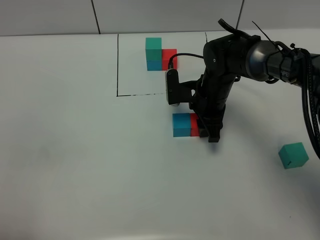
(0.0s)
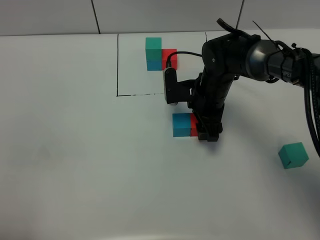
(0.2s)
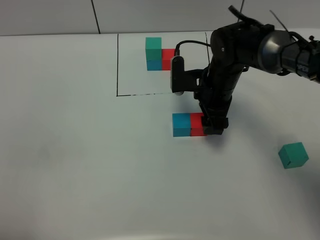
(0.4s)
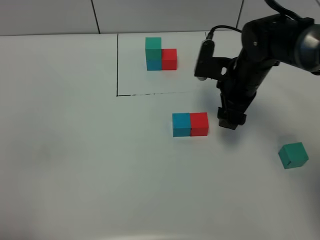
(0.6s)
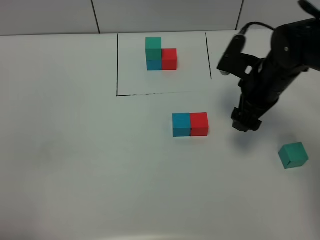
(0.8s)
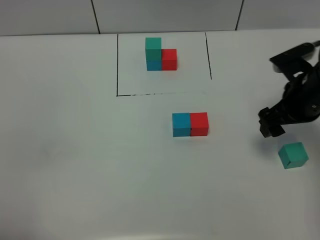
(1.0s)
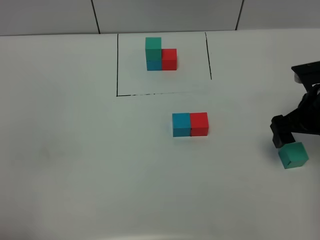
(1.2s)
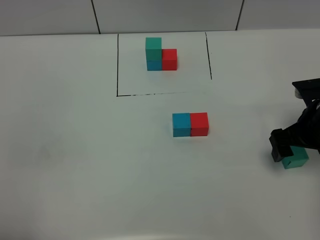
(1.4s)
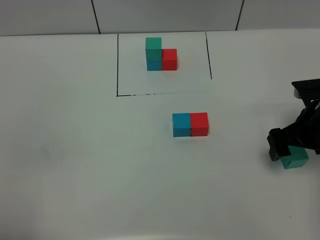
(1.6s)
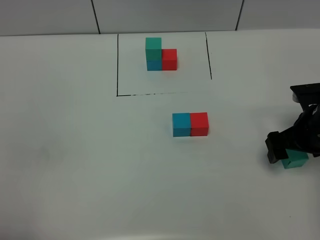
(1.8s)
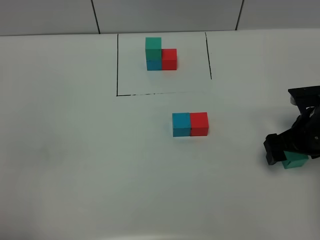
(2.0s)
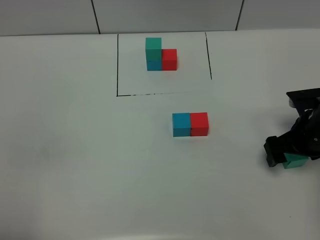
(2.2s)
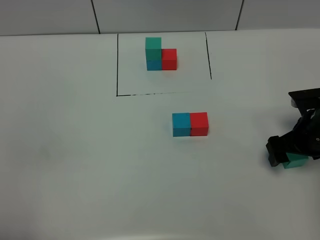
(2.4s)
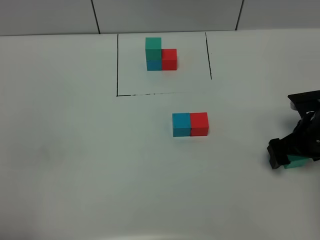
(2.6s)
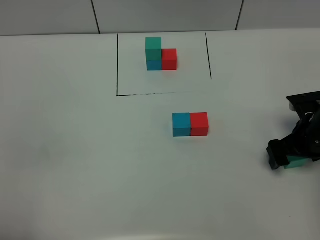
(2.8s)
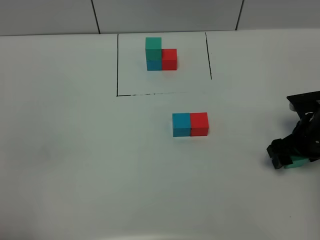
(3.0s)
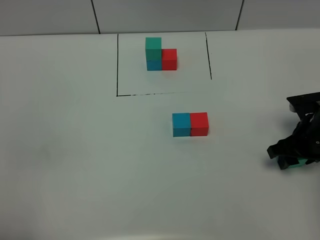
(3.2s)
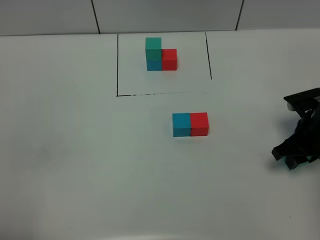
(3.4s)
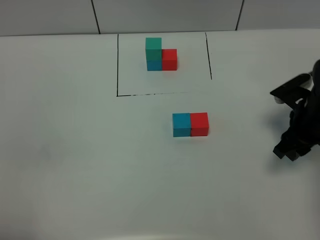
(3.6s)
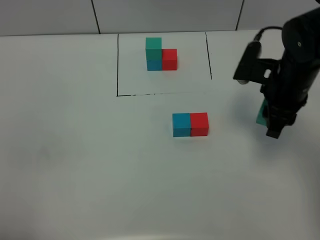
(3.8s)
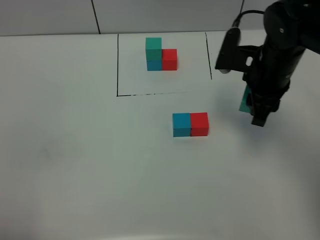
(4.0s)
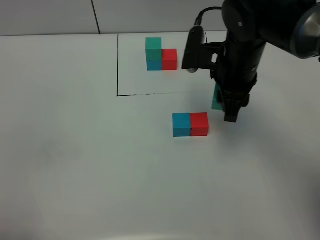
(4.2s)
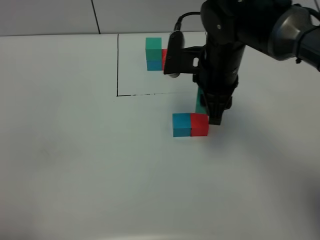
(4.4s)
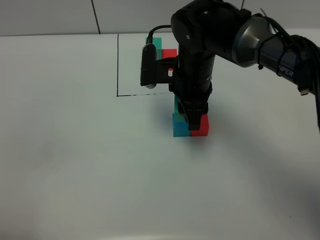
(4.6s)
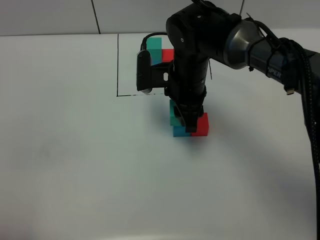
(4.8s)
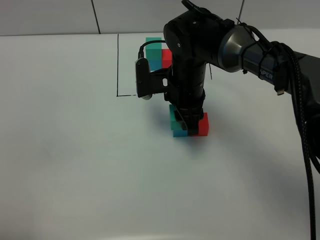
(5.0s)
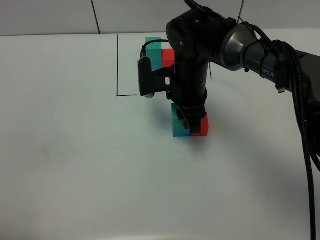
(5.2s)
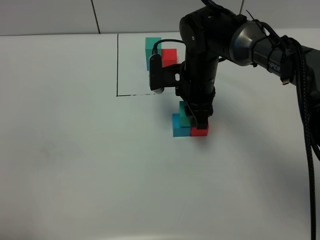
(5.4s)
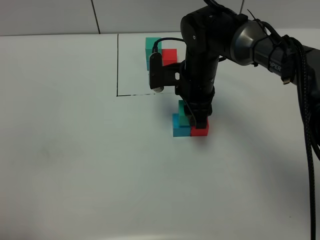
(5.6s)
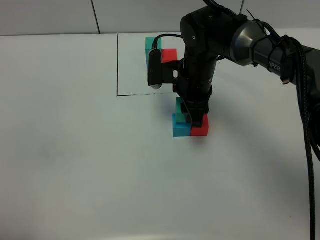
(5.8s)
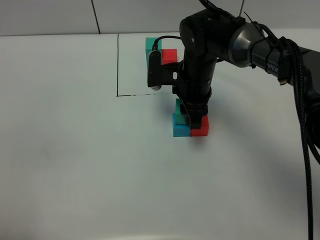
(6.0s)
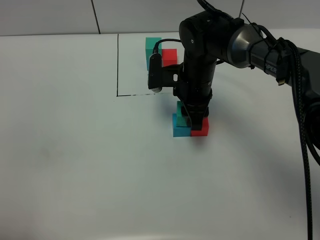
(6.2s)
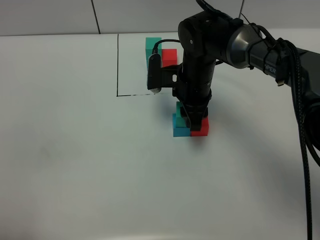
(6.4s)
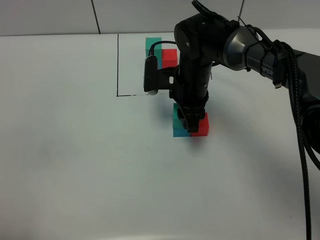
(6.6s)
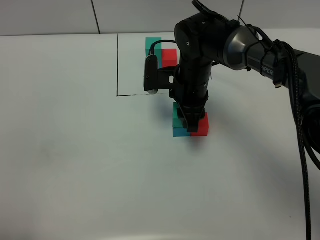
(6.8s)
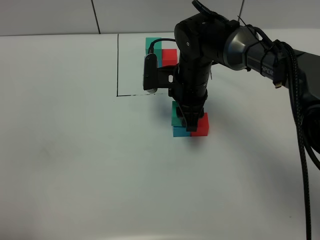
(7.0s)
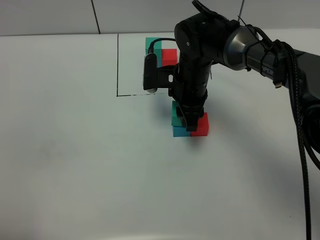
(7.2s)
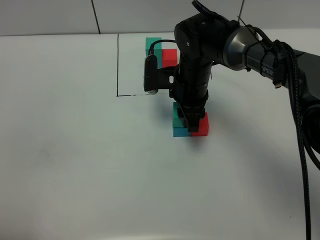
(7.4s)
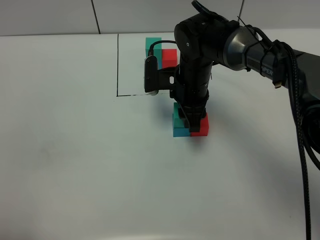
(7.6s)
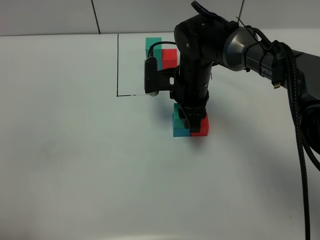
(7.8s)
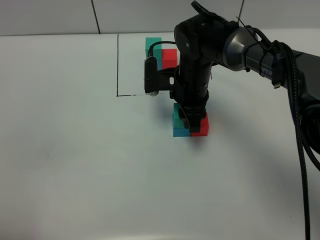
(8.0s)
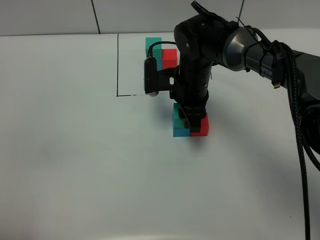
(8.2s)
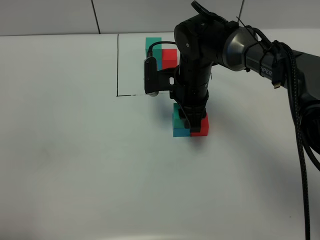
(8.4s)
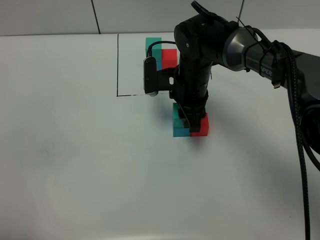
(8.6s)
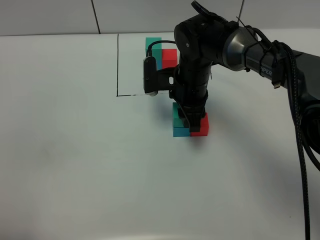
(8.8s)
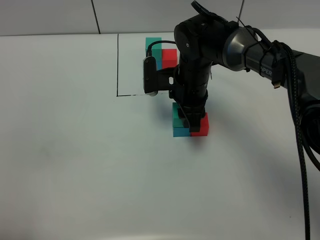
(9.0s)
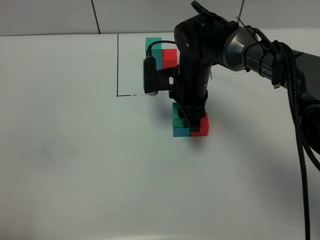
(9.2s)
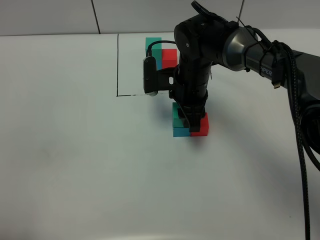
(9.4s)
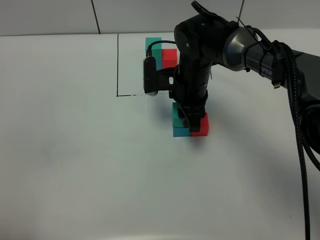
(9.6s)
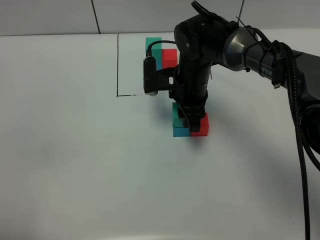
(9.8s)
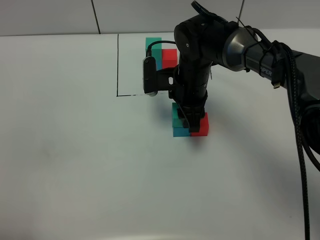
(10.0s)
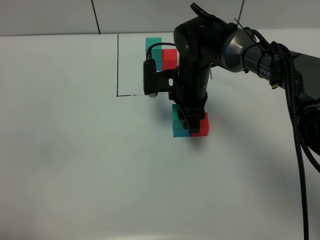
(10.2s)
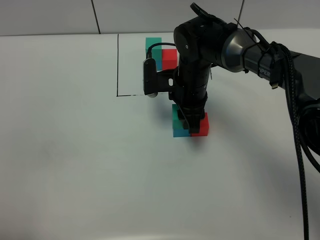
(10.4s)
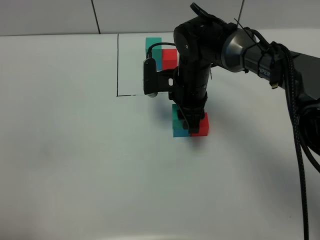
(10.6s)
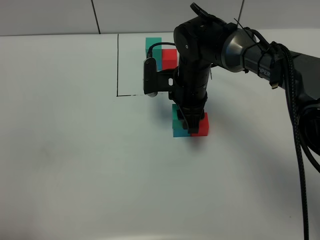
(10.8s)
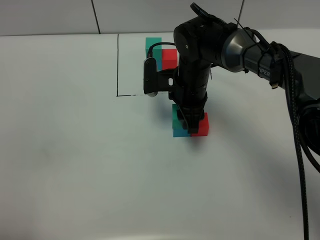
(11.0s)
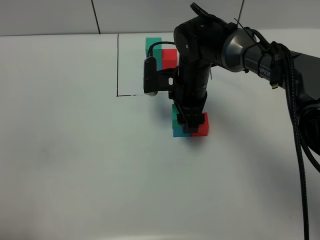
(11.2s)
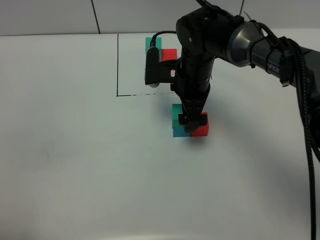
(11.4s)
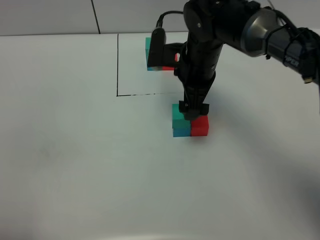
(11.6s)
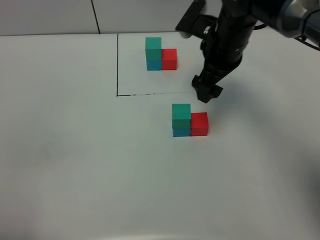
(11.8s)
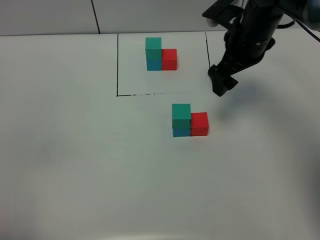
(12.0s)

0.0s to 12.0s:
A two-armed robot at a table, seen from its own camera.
Task of the whole recording: According to the building block template in front, assemble the scattered blocks together.
Step, 0.4s to 11.4s: Put the green build block on the blue build block.
0.0s to 1.6s: The right gripper heads to the right and backward, covering approximately 20 cm, and opens its fingers.
1.6s to 3.0s: The grippers move only a little.
3.0s to 4.4s: The right gripper is displaced to the left and upward by roughly 25 cm, and closes up.
4.4s to 6.0s: The right gripper goes about 5 cm downward.
6.0s to 10.4s: The two grippers keep their place.
10.4s to 12.0s: The right gripper goes some 15 cm to the right and upward, and opens.

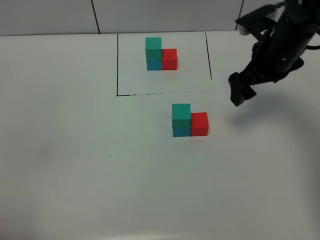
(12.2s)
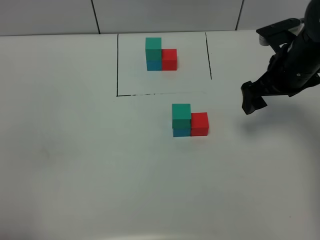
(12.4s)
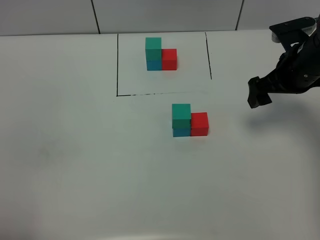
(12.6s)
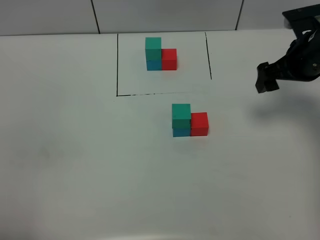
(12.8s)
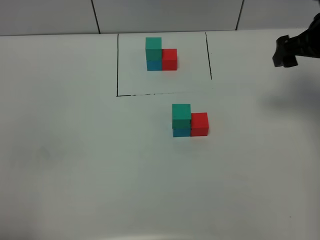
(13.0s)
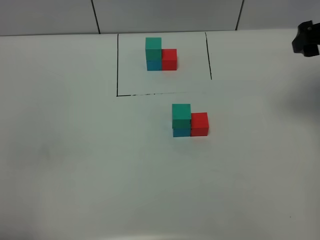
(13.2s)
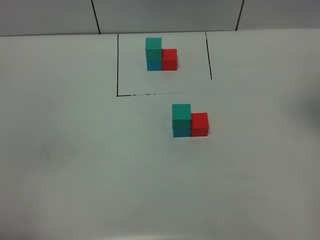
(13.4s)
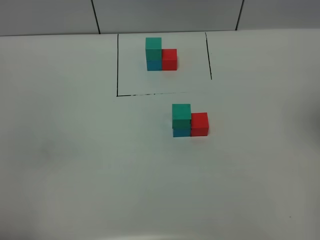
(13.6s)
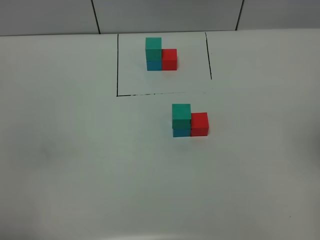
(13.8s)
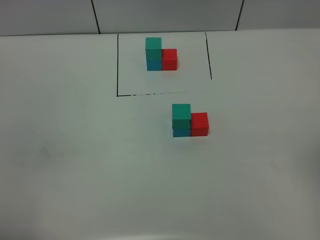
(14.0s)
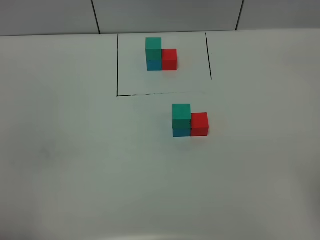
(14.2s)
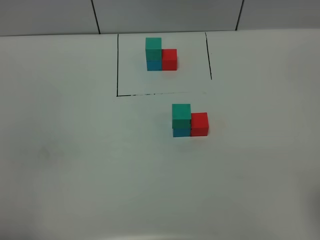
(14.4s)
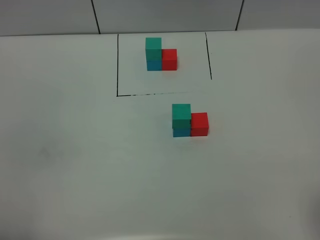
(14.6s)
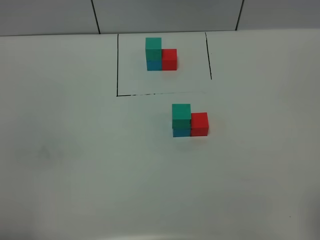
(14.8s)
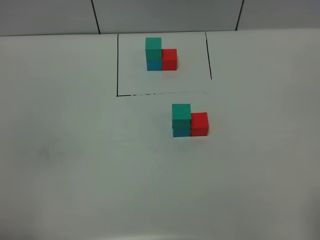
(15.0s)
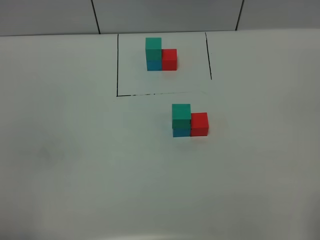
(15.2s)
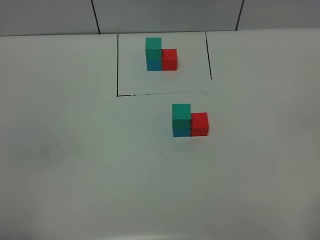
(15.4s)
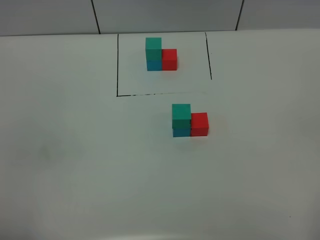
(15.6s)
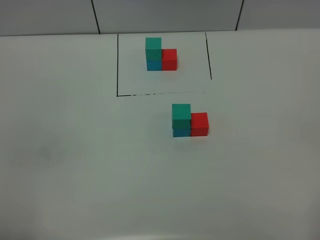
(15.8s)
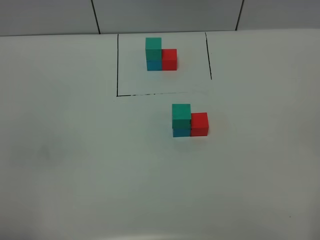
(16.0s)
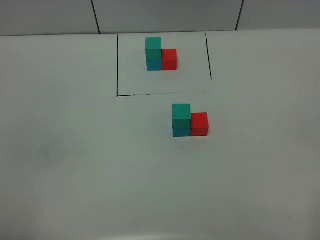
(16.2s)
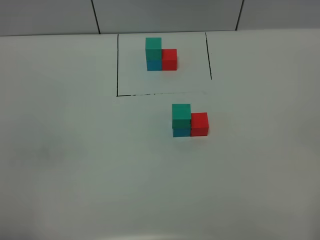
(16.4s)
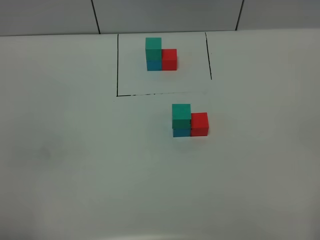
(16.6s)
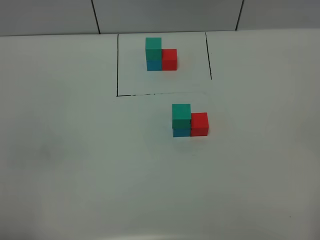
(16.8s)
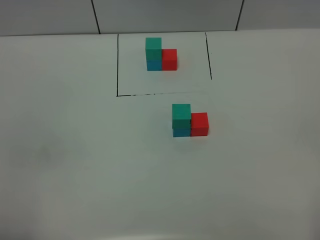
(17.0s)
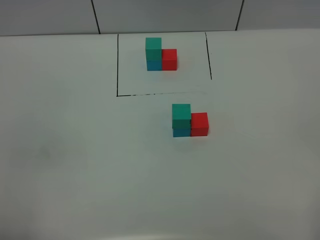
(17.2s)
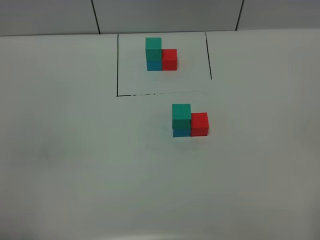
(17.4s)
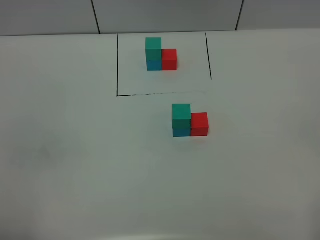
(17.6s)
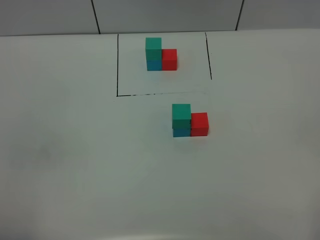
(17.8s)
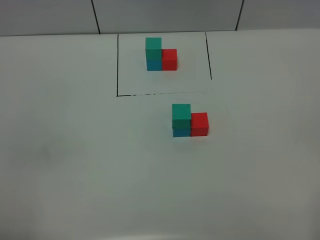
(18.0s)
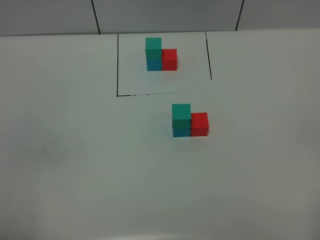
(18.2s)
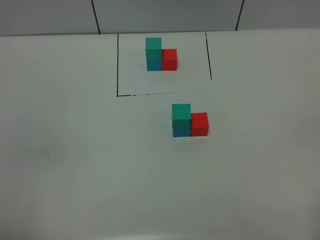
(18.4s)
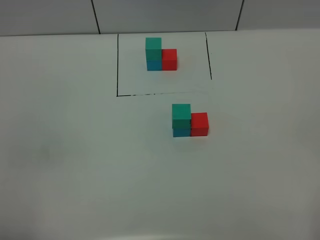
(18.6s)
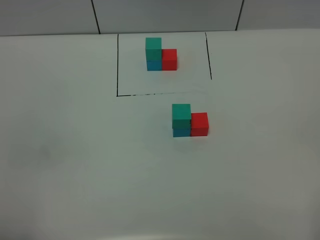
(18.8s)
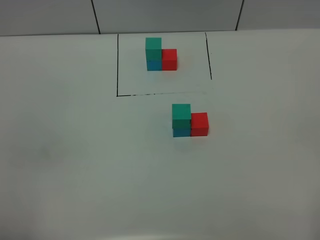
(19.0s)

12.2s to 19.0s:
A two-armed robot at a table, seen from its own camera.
Task of the whole recording: According to the building block template in front, assemble the scattered blocks together.
12.2s to 13.6s: The right gripper travels upward, backward and to the right by about 25 cm.
16.2s to 19.0s: The two grippers keep their place.

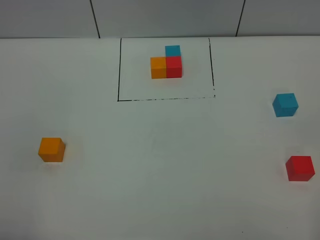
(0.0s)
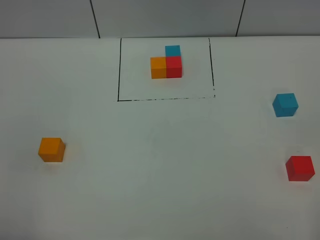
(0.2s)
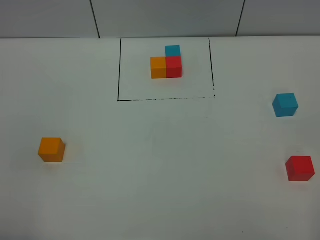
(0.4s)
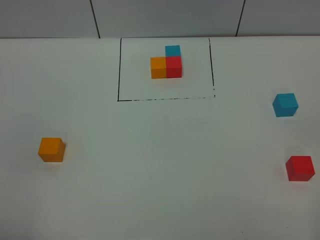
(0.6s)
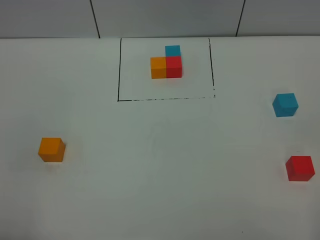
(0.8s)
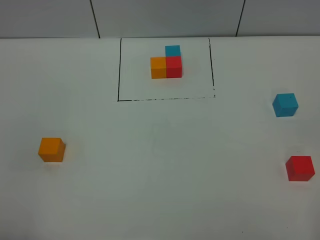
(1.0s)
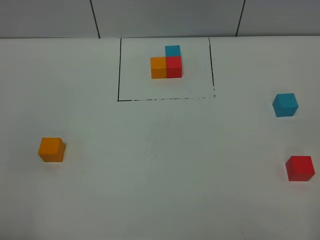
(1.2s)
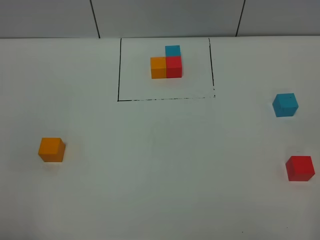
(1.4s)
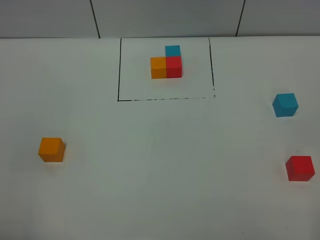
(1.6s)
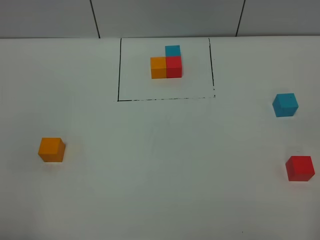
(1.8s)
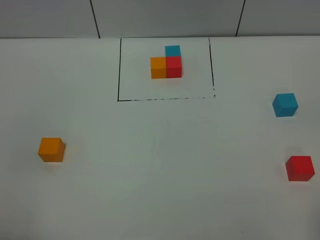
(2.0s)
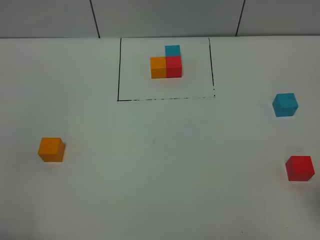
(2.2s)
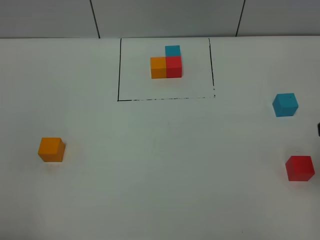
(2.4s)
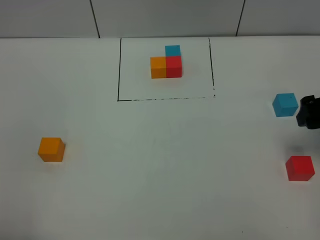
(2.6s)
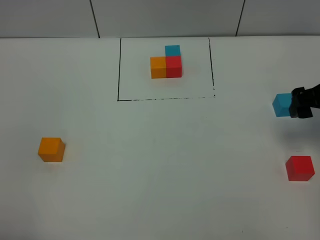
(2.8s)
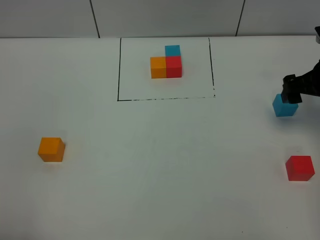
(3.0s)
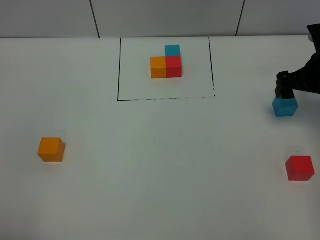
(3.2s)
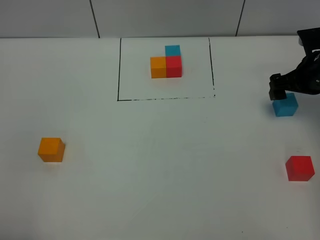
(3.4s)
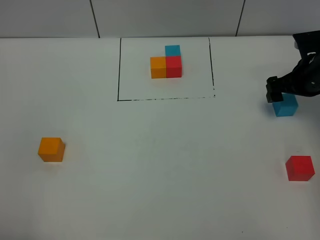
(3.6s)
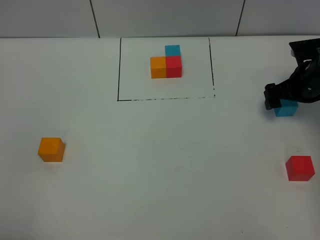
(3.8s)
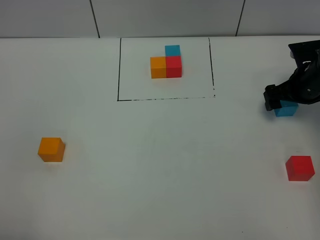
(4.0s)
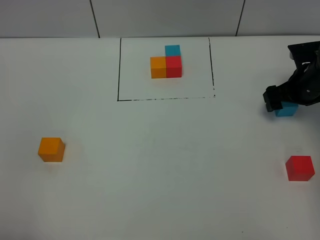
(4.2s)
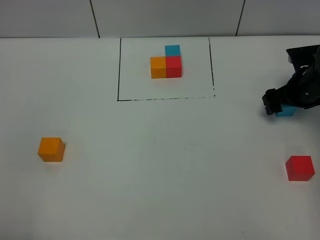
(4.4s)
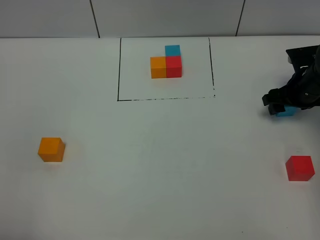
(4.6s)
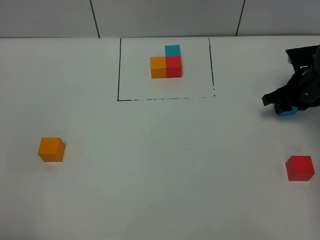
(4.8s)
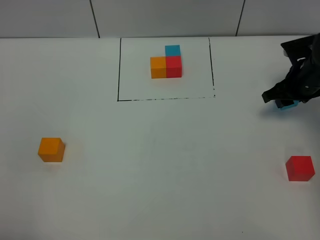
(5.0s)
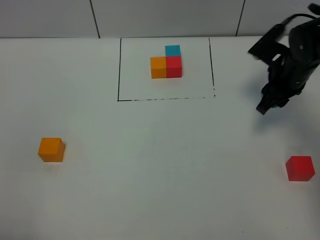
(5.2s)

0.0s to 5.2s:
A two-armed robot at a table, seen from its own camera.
Task of the whole recording: According to the building block template in front, assemble the scattered blocks together.
0.0s to 1.8s: Neither gripper changes place.
1.8s to 3.4s: The right gripper is displaced forward by some 40 cm.
3.4s to 5.2s: The right gripper heads to the left, covering roughly 10 cm, and closes its fingers.
